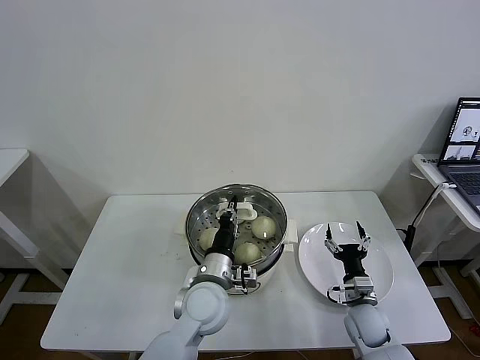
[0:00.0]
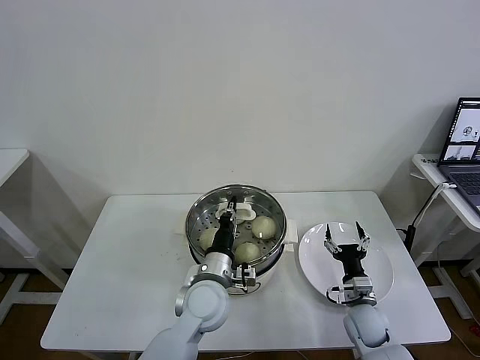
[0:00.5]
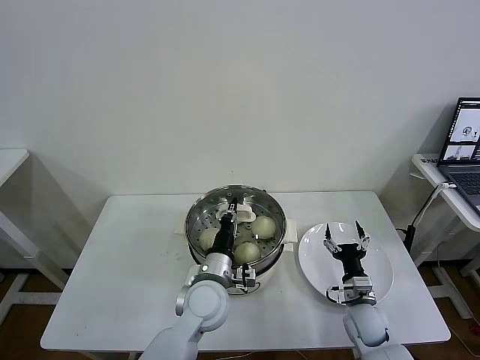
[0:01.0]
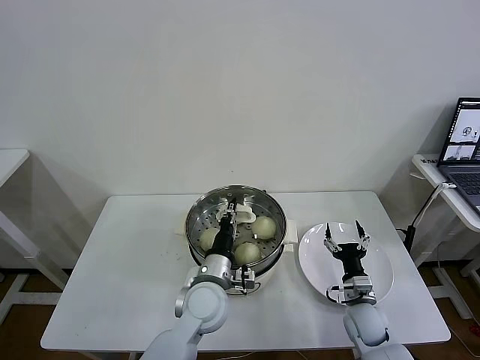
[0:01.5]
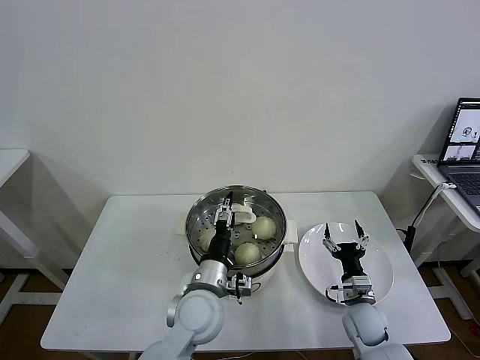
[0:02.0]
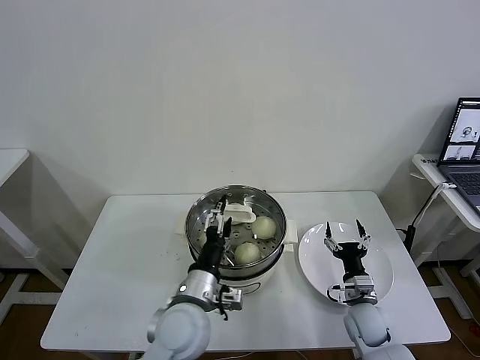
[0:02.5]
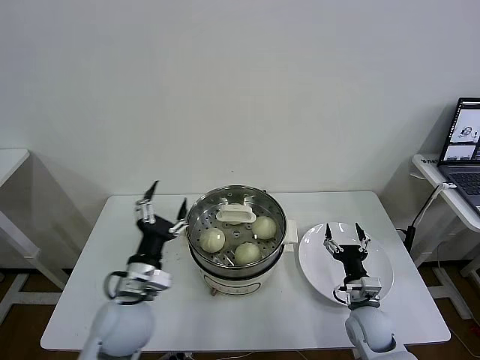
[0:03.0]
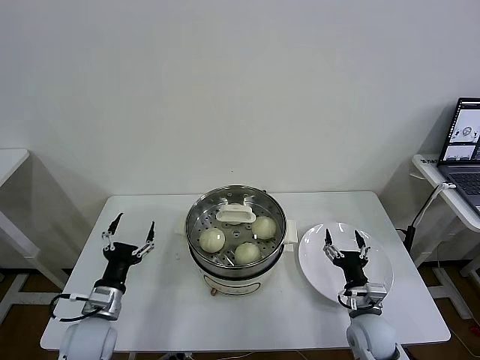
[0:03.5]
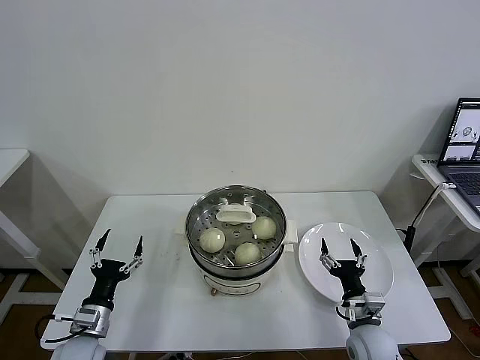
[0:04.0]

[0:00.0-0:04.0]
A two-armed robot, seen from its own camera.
Task of the whole recording: take steamed baozi put them in steamer then cover it.
0:00.0 to 0:02.0: The left gripper opens its fingers.
0:02.0 to 0:04.0: The right gripper goes approximately 5 cm backward, while the left gripper shifts some 25 cm to the left.

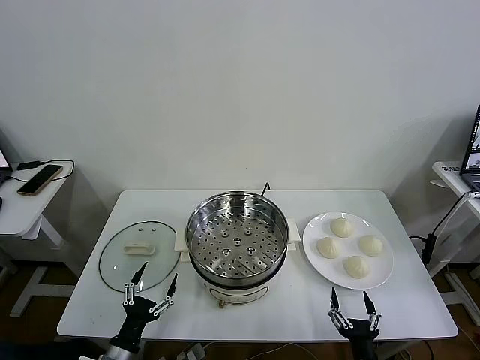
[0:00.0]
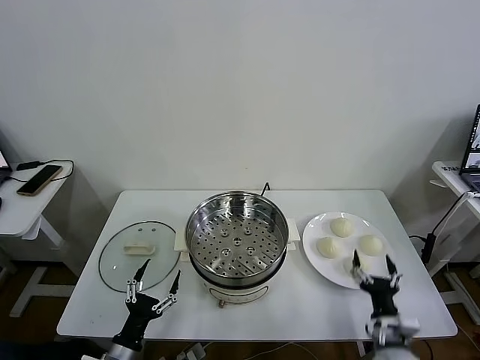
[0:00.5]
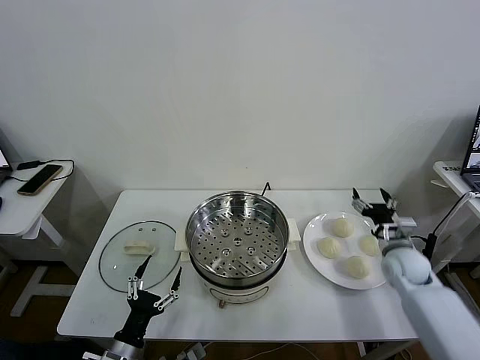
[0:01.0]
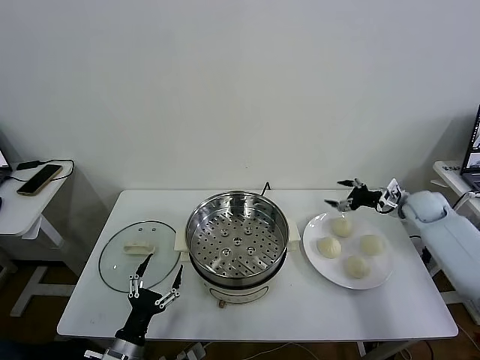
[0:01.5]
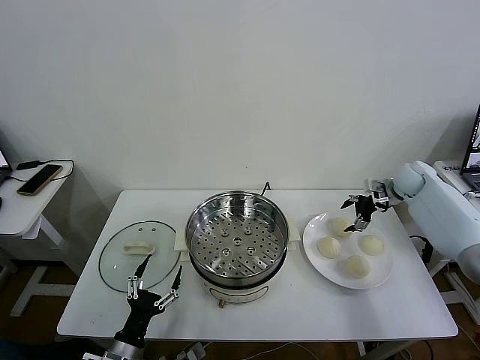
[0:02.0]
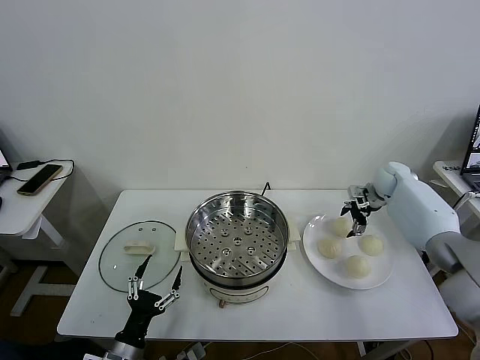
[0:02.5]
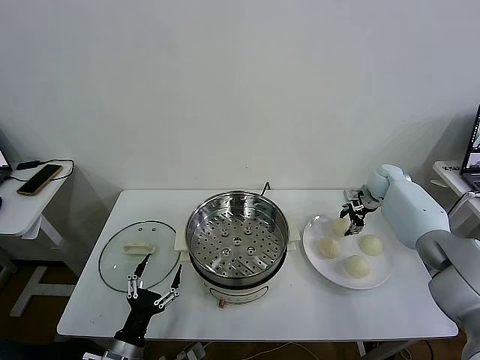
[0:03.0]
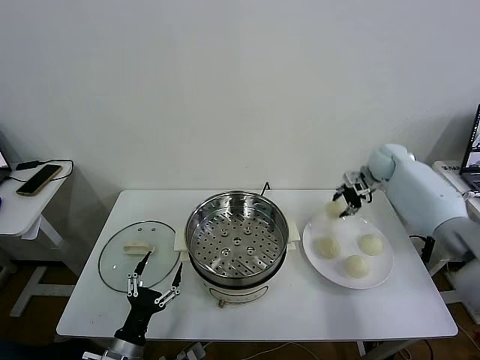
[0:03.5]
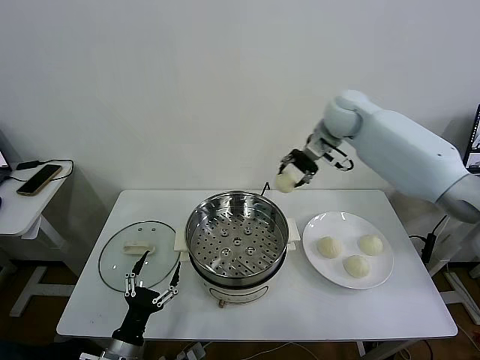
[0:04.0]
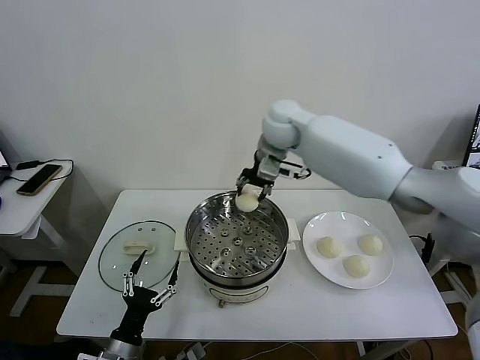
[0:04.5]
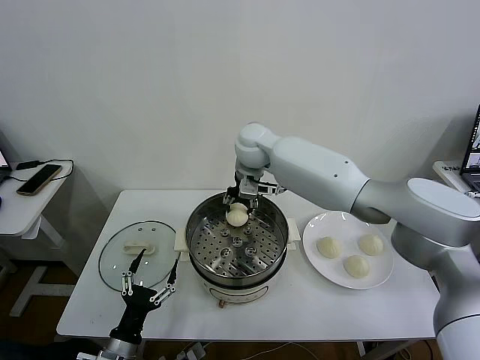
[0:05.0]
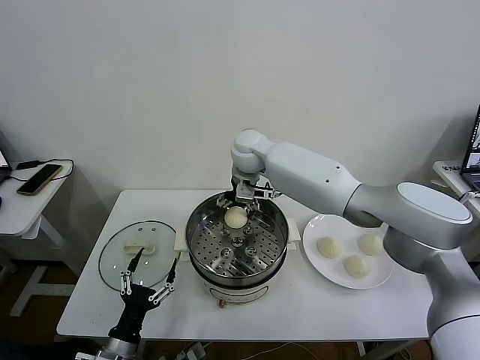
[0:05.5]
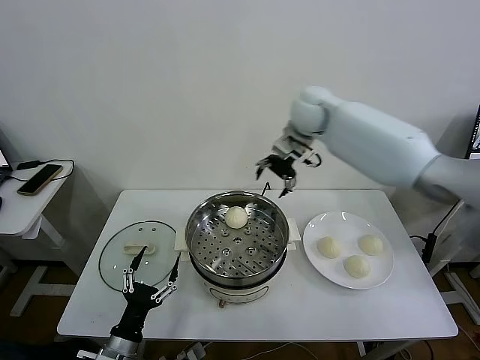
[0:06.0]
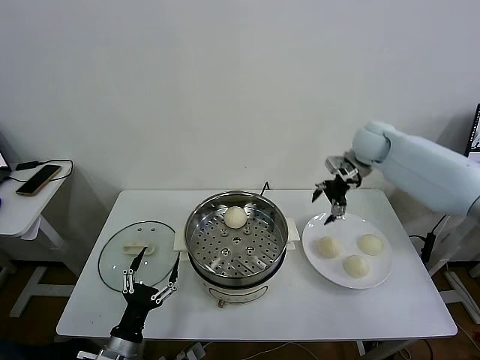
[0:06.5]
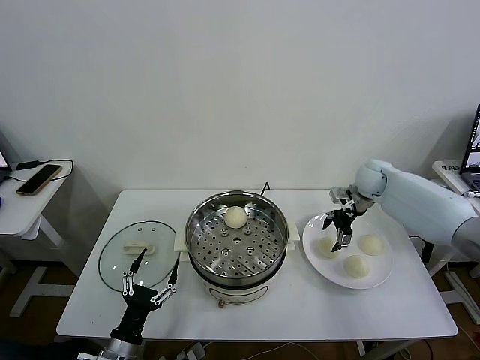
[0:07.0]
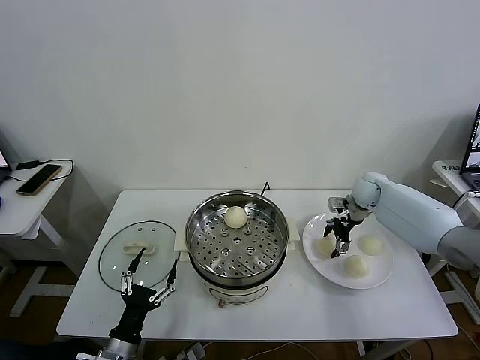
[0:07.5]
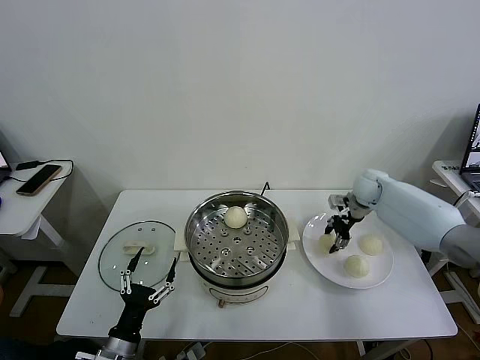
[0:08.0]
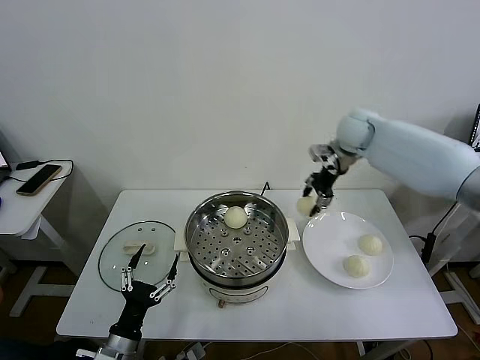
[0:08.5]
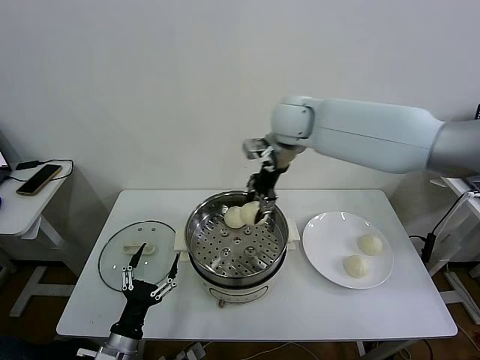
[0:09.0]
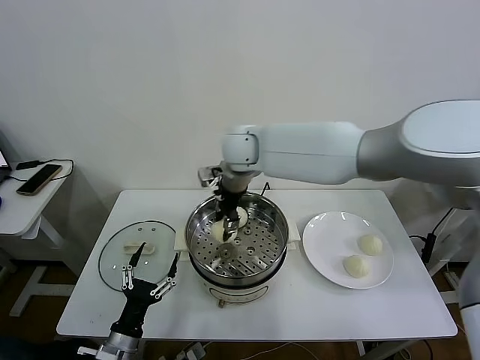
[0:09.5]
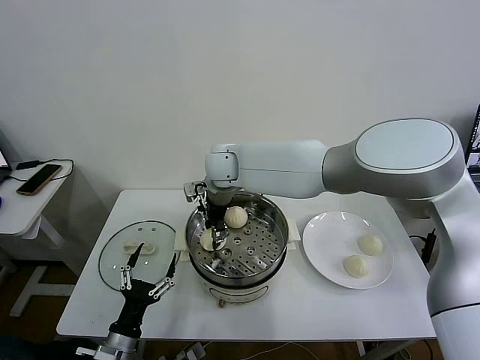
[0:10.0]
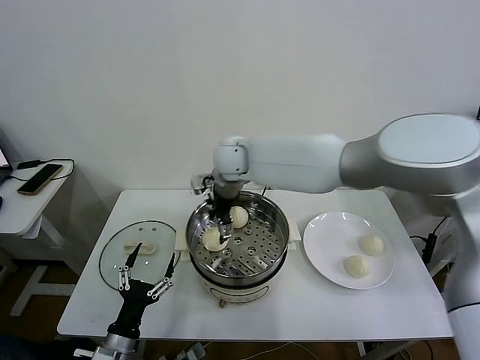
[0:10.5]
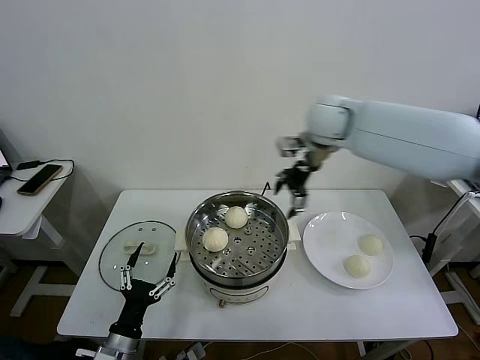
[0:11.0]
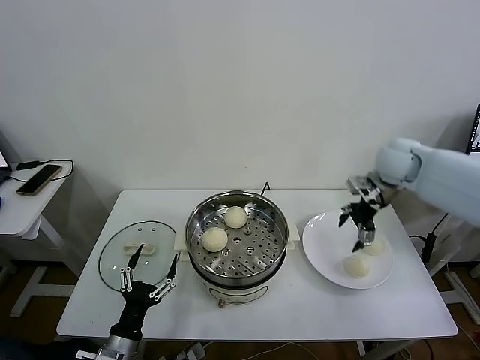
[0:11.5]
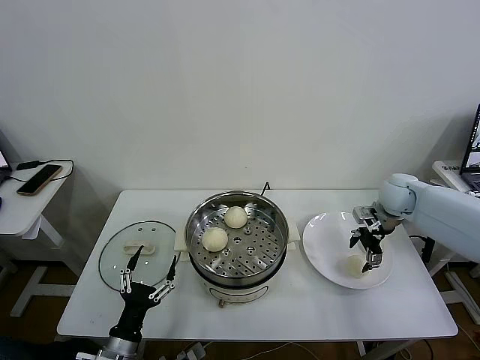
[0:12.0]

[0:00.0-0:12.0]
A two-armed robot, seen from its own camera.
Task of the whole recording: take steamed baozi put them in steamer then cover it.
Step, 0:00.0 to 0:03.0: Grasp the baozi in the plate with right gripper.
Step, 0:03.5 to 0:05.5: Place the baozi on the steamer with right gripper.
Step, 0:06.0 to 0:07.5: Grasp the baozi in the plate with right gripper.
Step, 0:08.0 to 0:10.0: Place the baozi on the steamer with right gripper.
0:02.0 to 0:04.0: The right gripper heads to the left and upward, covering some 30 cm, and closes its fingers.
0:04.0 to 0:06.0: The right gripper reaches some 15 cm to the left, then returns, and opens its fingers.
0:06.0 to 0:08.0: The right gripper heads downward and to the right, covering some 25 cm, and closes.
0:08.0 to 0:10.0: The right gripper moves to the left, some 40 cm.
0:10.0 to 0:12.0: The right gripper travels to the right by roughly 40 cm, and opens.

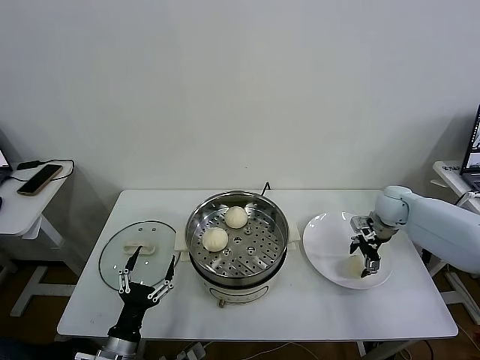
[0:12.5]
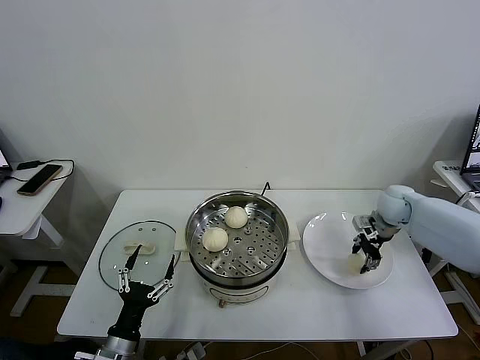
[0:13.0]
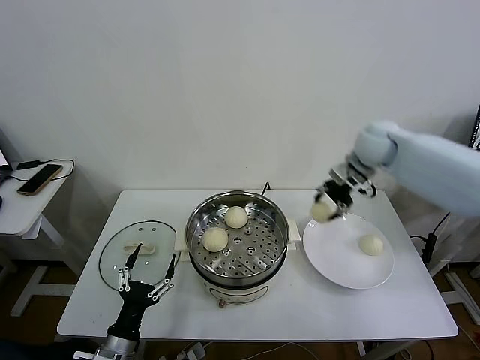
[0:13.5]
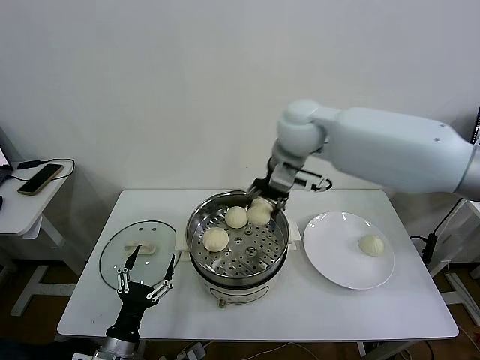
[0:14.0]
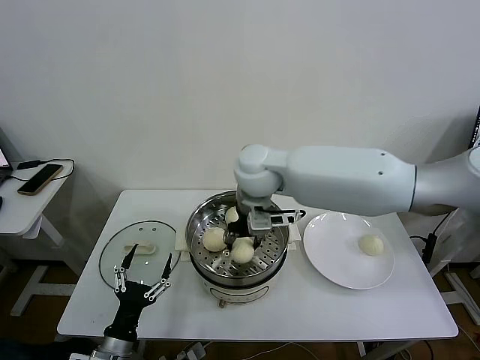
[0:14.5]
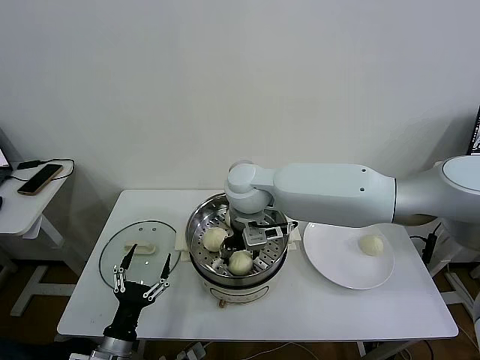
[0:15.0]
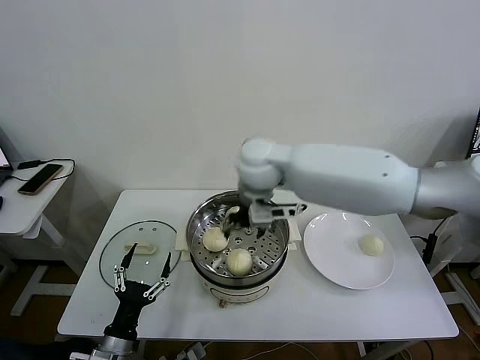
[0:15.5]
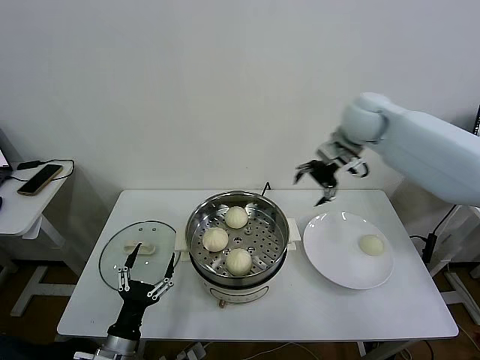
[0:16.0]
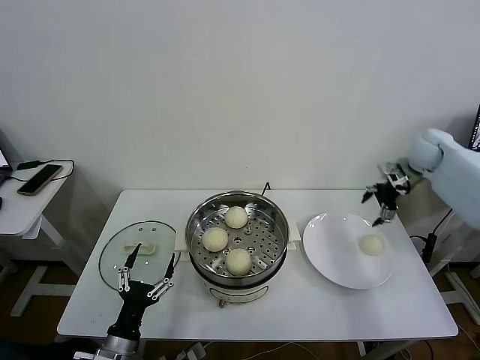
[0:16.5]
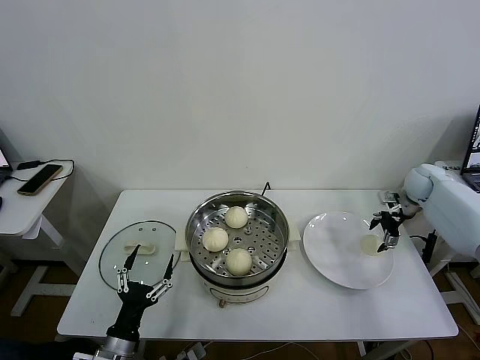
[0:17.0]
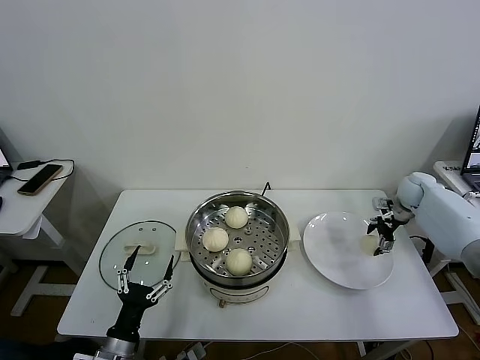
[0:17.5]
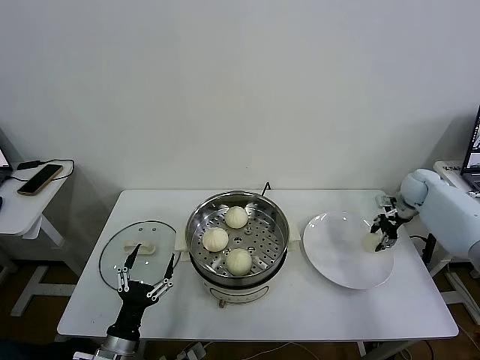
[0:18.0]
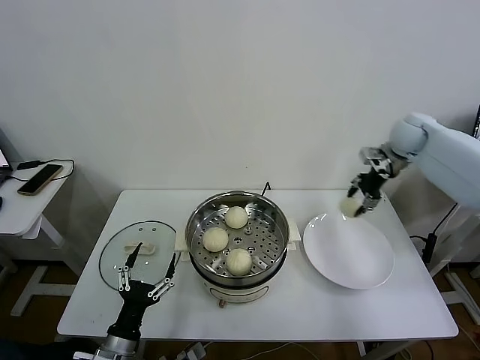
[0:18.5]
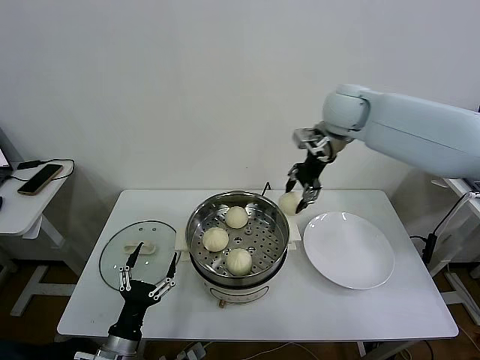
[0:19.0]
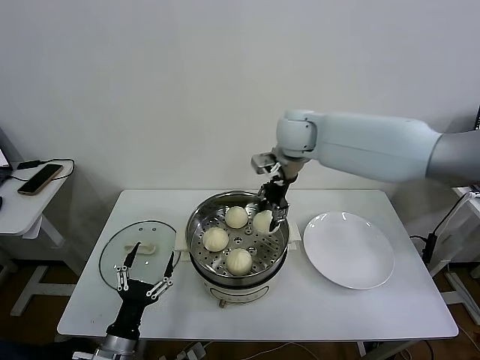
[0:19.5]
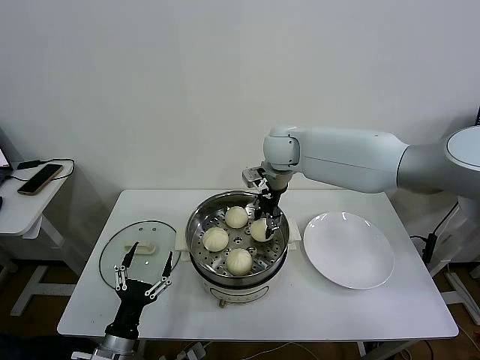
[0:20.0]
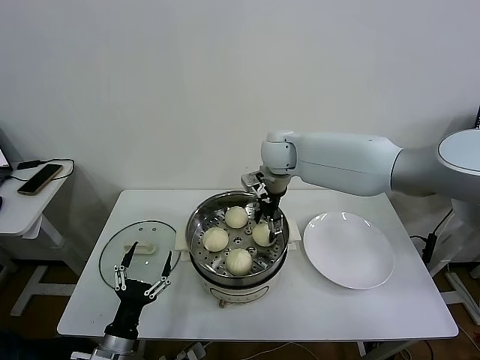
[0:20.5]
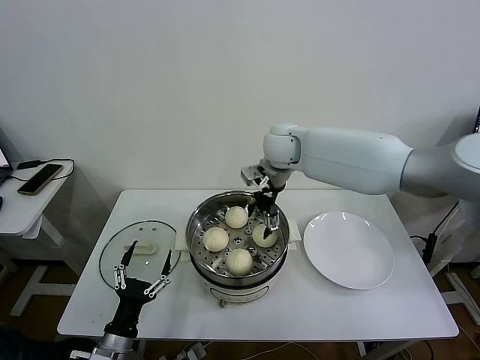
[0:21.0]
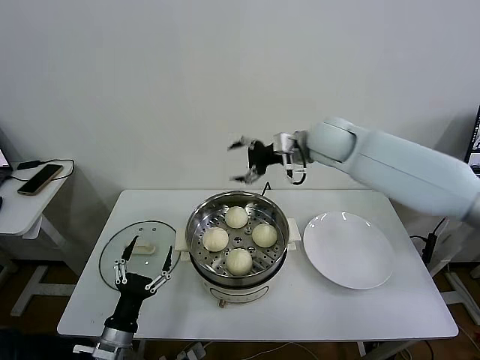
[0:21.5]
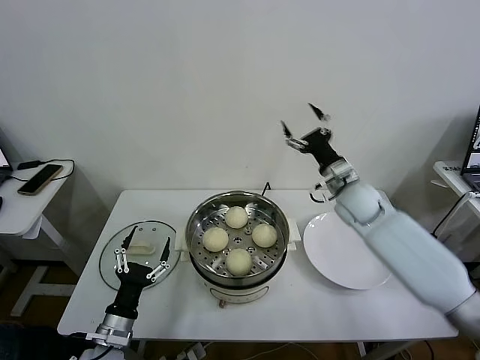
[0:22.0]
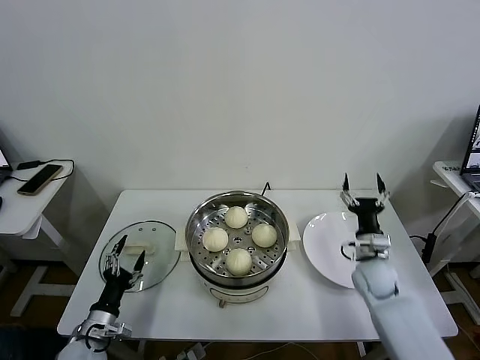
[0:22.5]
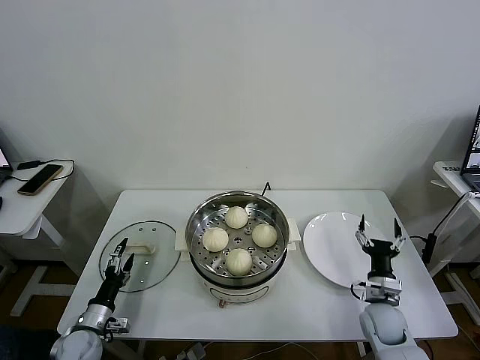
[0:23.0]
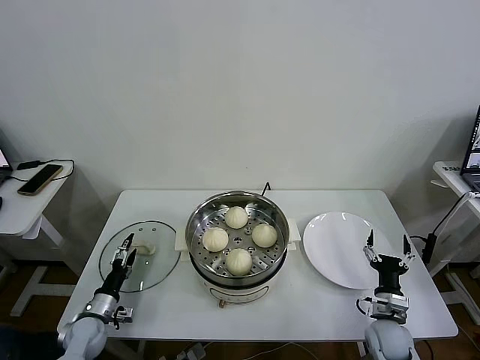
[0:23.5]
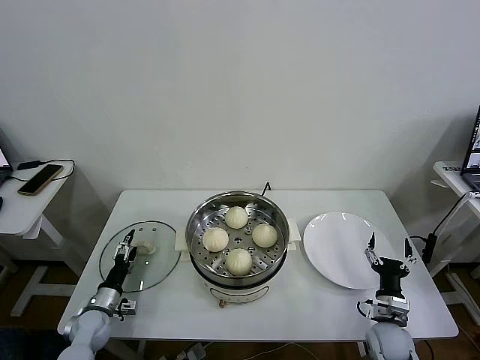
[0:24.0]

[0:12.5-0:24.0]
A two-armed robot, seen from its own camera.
Task of the whole recording: take steamed baozi put them in steamer then cover it.
Step, 0:13.5 to 0:15.0: Place the baozi on the steamer with right gripper.
Step, 0:15.5 to 0:17.5: Grasp the baozi in the plate with right gripper.
Step, 0:18.0 to 0:20.5: Place the baozi on the steamer with right gripper.
0:12.5 to 0:14.5: The right gripper moves to the left and upward, roughly 40 cm, and closes its fingers.
0:14.5 to 0:16.5: The right gripper shifts about 40 cm to the right, and opens.
0:16.5 to 0:18.5: The right gripper heads to the left, covering roughly 5 cm, reaches approximately 10 cm downward, then returns, and closes.
0:18.5 to 0:20.0: The right gripper moves to the left, roughly 30 cm.
0:20.0 to 0:22.0: The right gripper travels to the right, downward and backward by approximately 20 cm, and opens.
0:22.0 to 0:24.0: The right gripper heads downward and backward, covering roughly 35 cm. The left gripper is displaced to the left, forward and downward by some 20 cm.
